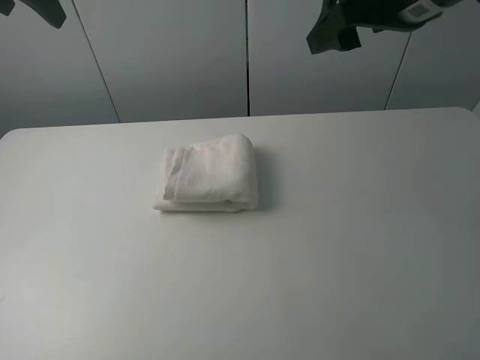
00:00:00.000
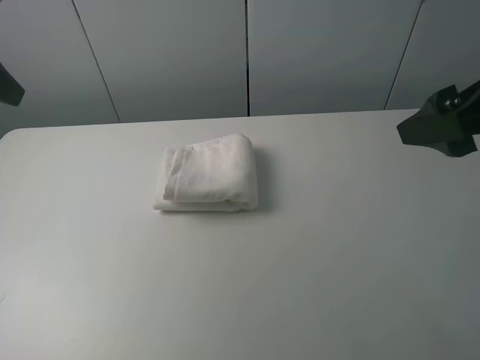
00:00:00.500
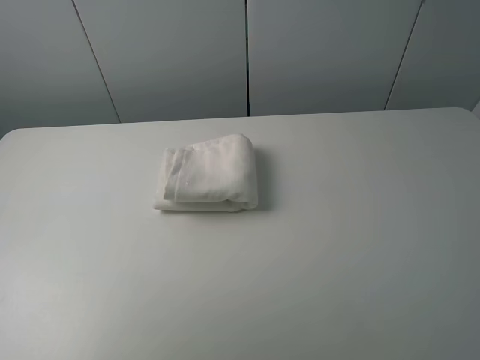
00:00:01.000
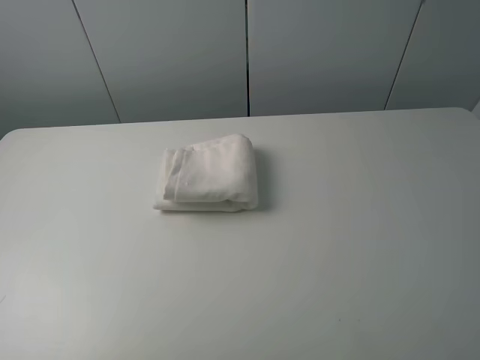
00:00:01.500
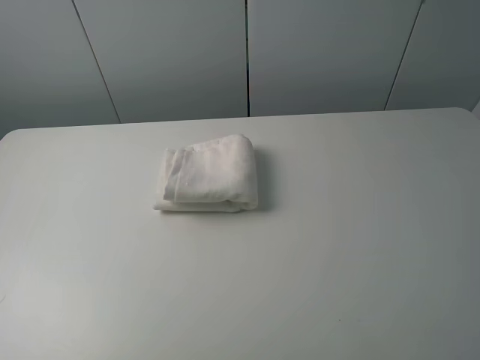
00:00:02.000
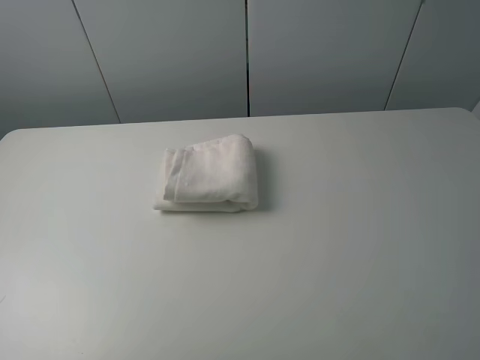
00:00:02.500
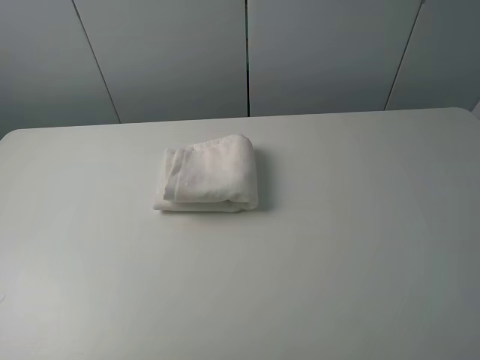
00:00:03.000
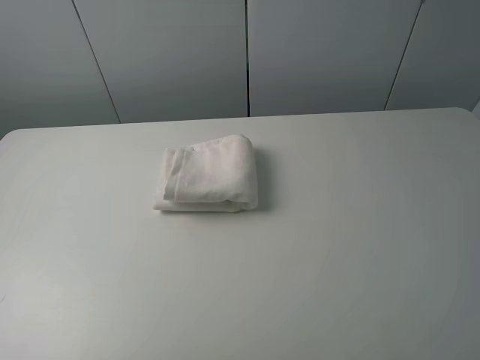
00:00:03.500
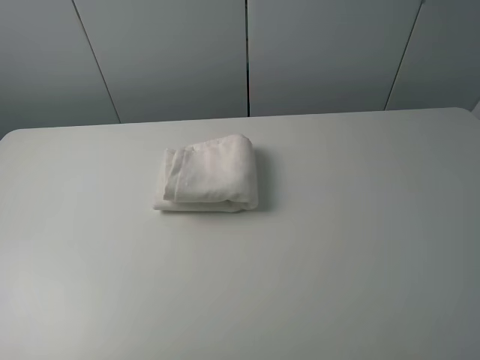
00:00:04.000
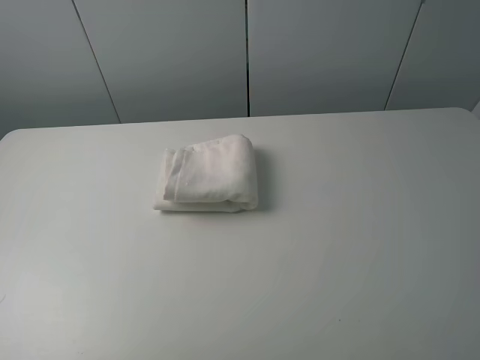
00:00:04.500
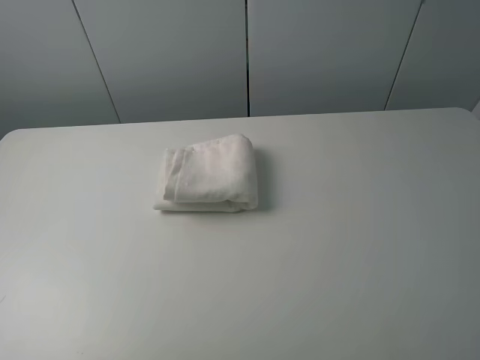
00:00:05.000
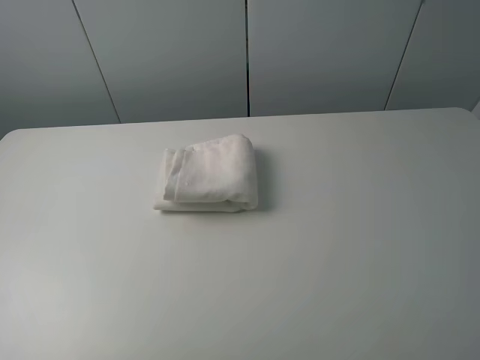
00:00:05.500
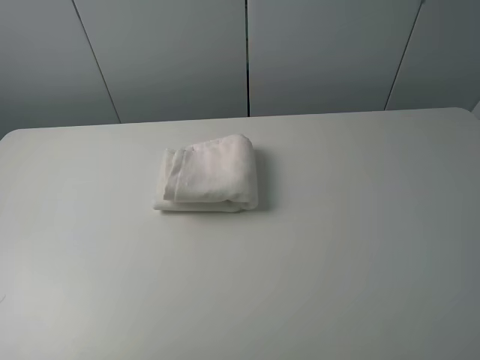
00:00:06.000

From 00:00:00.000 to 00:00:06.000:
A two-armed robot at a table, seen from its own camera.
Task of the whole recording: fold the towels on the table.
From 00:00:00.000 to 00:00:02.000: The right gripper moves backward and to the right, about 30 cm, while the left gripper shifts roughly 35 cm backward.
From 00:00:04.000 to 00:00:06.000: Both grippers stay put.
